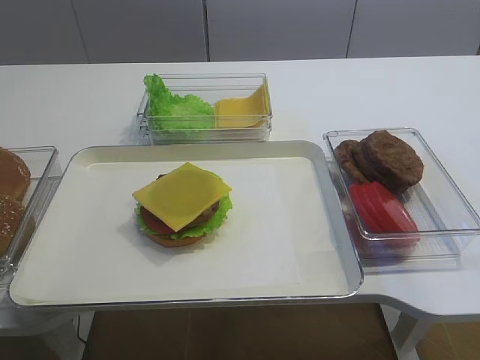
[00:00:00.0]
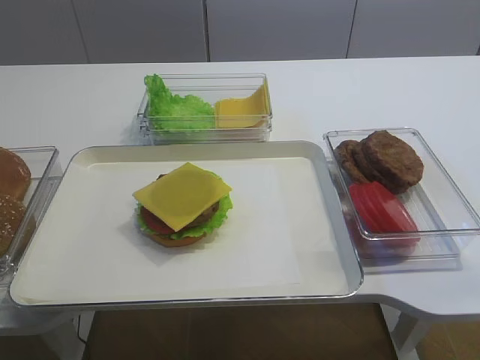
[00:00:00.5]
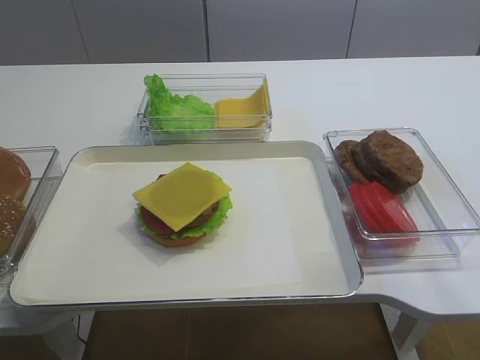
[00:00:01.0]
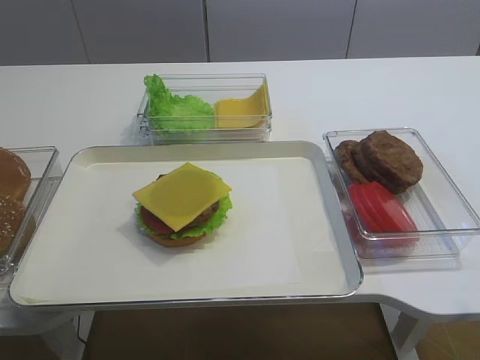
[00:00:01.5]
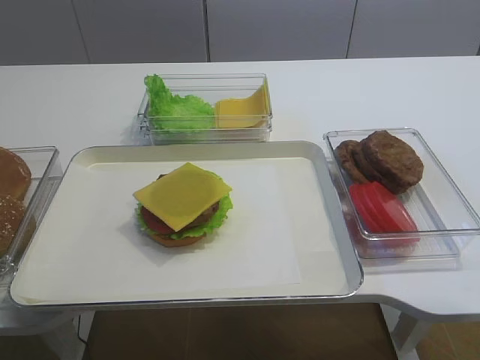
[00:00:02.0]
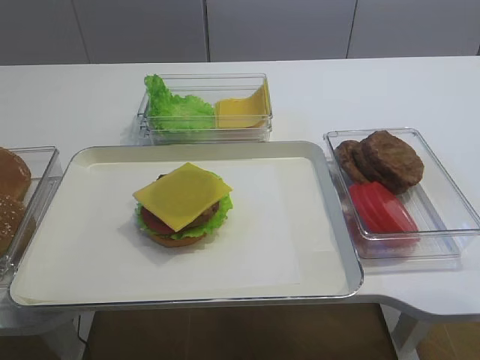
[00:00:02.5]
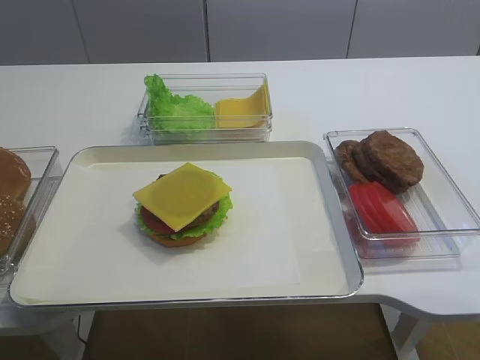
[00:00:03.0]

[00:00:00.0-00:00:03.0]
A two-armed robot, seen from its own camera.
00:00:00.0 to 00:00:01.5: The right gripper heads backward, covering some 20 cm.
